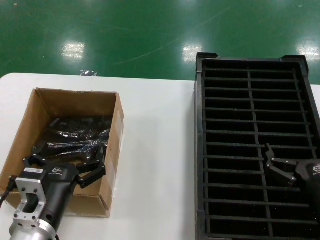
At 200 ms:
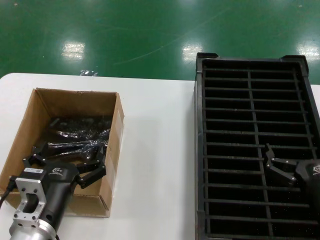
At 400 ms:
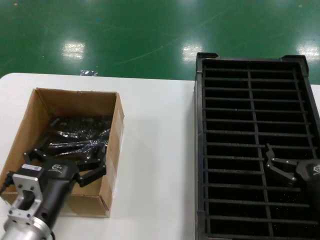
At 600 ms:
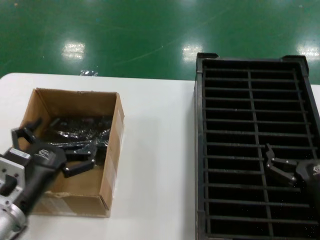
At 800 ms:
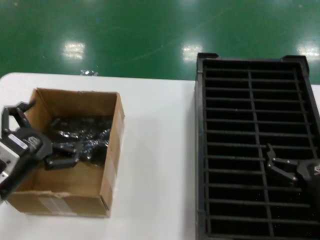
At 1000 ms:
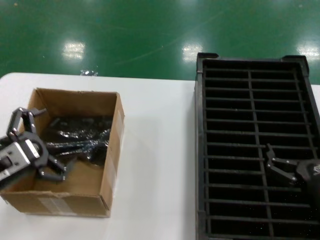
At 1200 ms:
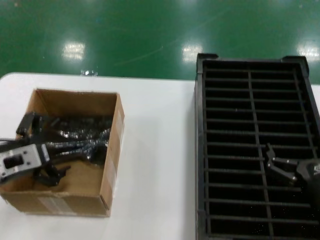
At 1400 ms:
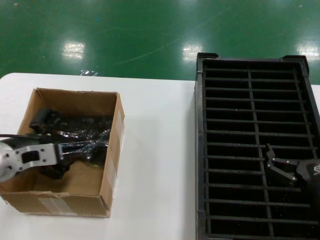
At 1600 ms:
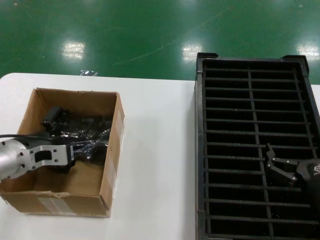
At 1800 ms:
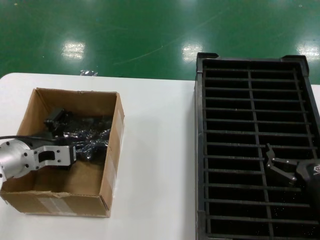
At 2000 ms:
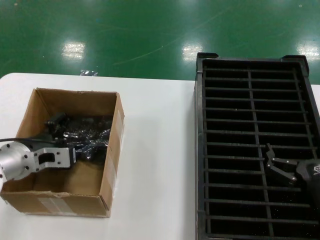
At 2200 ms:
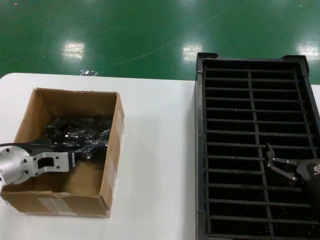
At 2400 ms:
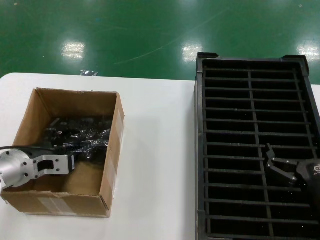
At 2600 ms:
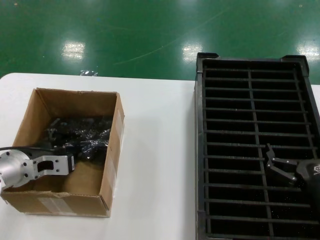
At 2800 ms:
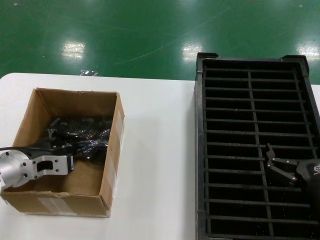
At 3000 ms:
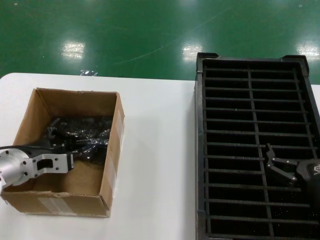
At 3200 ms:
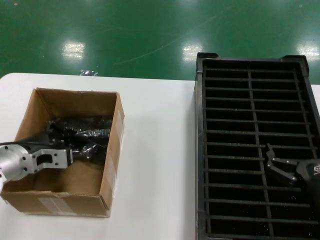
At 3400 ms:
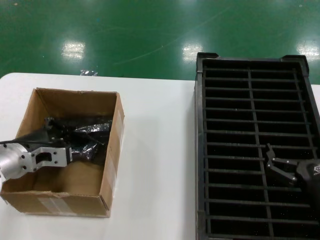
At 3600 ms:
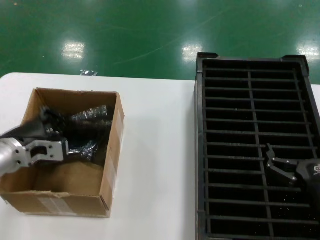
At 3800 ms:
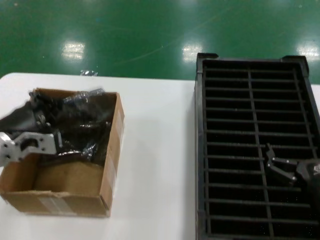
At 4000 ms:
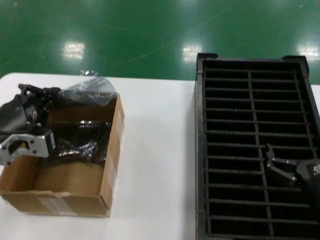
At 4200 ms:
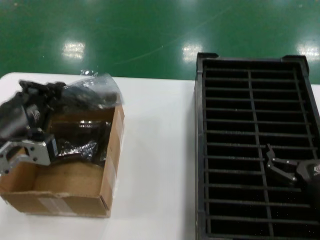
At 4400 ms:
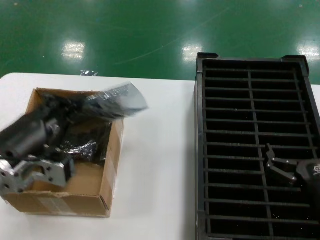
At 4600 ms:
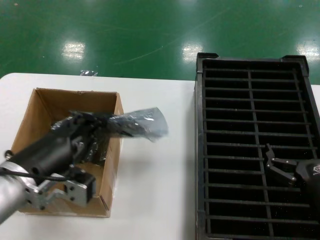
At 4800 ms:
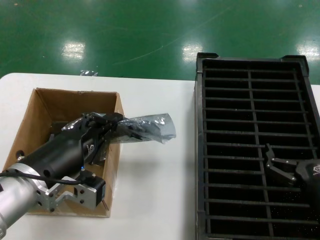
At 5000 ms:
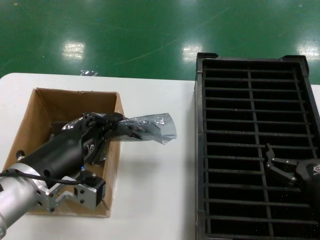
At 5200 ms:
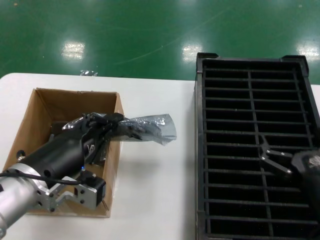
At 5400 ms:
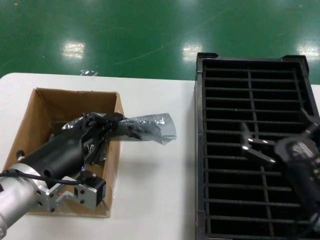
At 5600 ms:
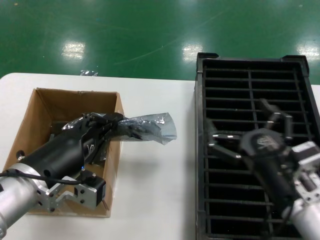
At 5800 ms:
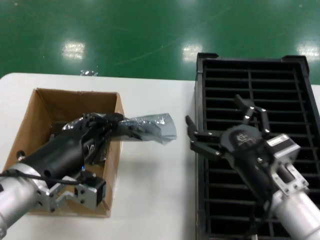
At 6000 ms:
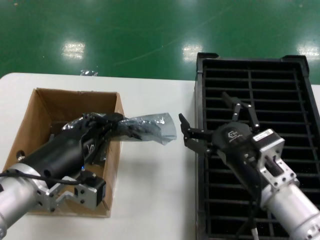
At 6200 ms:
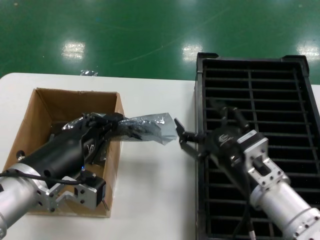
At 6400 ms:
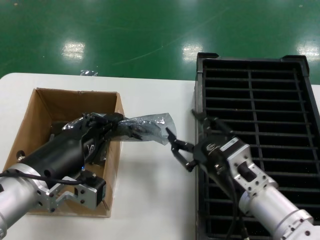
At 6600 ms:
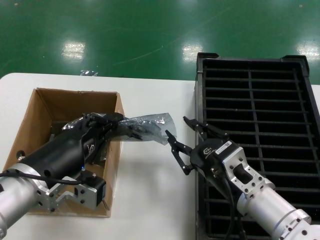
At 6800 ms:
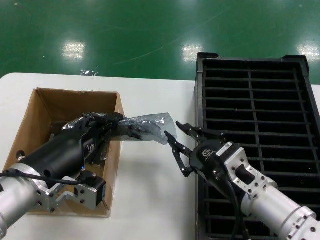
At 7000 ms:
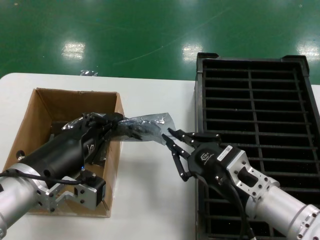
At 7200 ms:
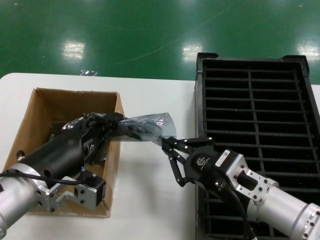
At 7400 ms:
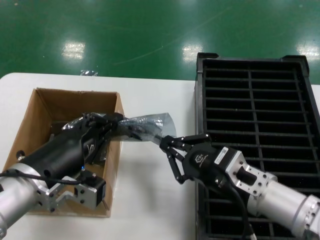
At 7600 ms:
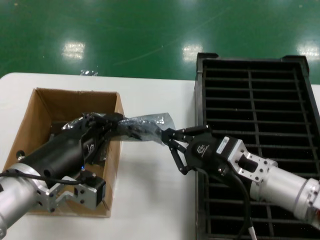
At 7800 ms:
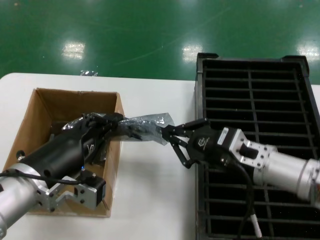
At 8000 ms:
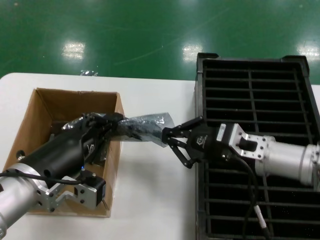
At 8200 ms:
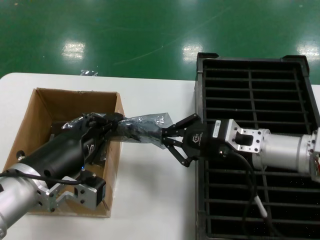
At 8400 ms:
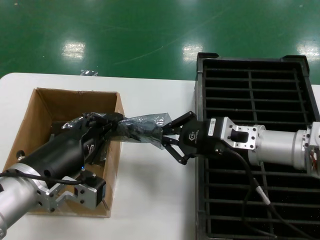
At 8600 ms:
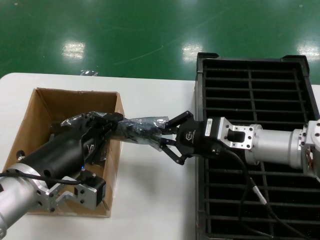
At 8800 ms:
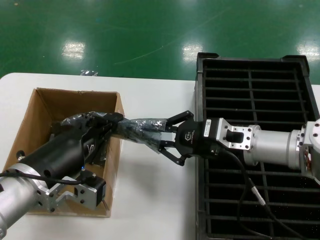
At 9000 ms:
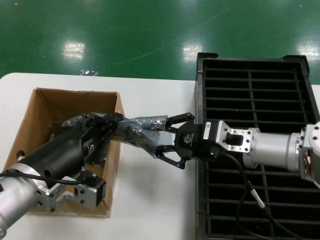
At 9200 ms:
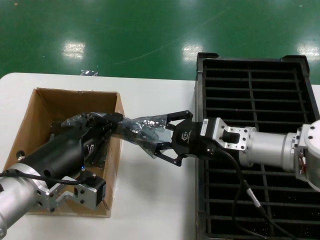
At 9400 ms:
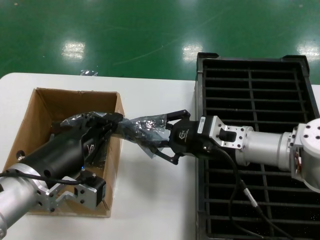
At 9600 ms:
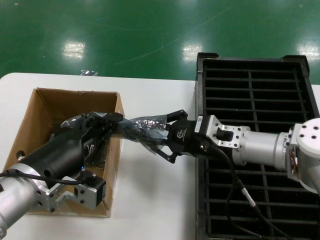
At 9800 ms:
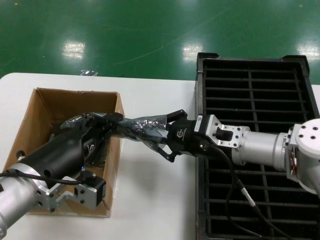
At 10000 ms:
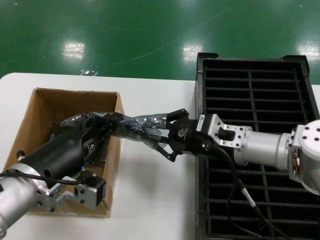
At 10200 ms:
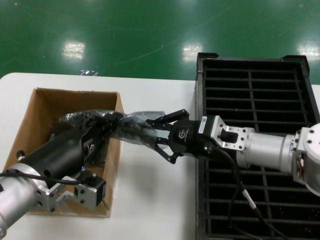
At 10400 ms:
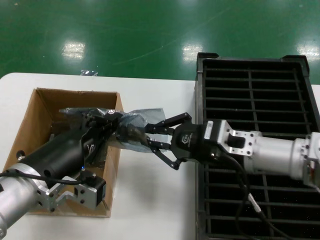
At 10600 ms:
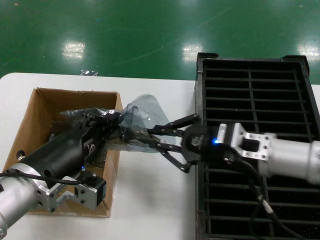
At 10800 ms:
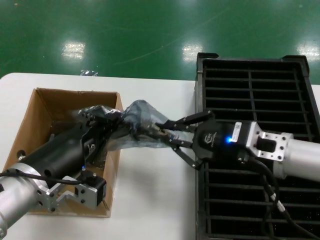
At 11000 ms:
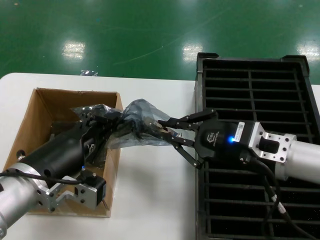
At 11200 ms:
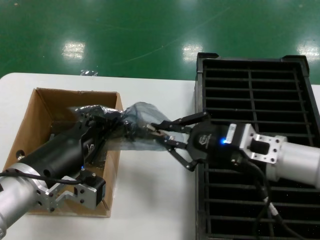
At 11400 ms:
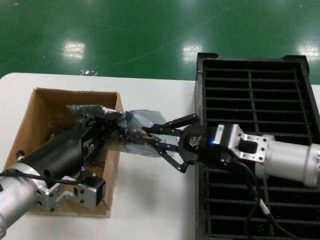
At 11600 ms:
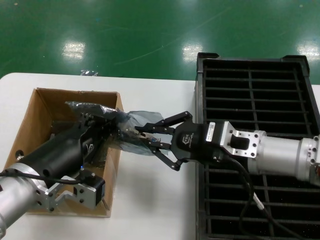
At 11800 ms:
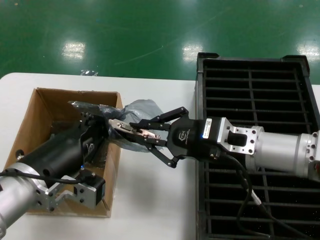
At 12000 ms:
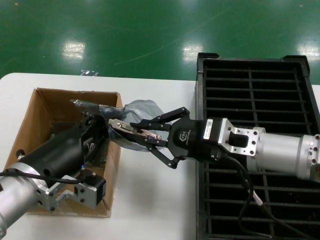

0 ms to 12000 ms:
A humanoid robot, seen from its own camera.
Task of the whole recording: take out graphics card from box remove packaging put into black container.
Step, 0 ms to 3000 ms: Grasp the bag.
Step, 3200 ms to 5000 ms: Lift the bag.
0 ms to 1600 ms: The left hand moves forward, to the left and upward, approximately 20 cm.
1600 ms to 3000 ms: The hands move only a little.
3000 ms to 4400 ms: The left hand travels backward, upward and to the right by roughly 15 cm.
4400 ms to 6000 ms: The right hand travels to the left and upward by approximately 10 cm.
7600 ms to 9000 ms: The right hand goes some 10 cm forward.
9000 ms to 10400 ms: The hands move only a little.

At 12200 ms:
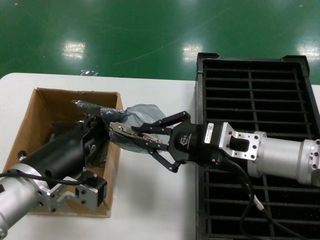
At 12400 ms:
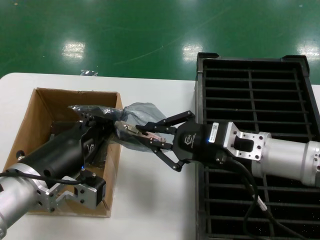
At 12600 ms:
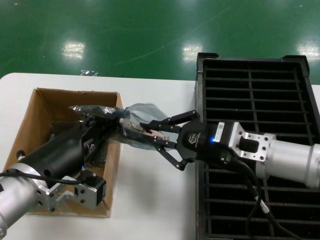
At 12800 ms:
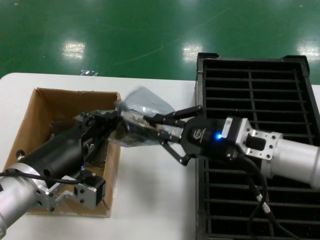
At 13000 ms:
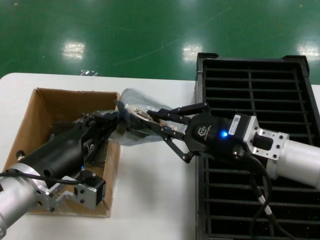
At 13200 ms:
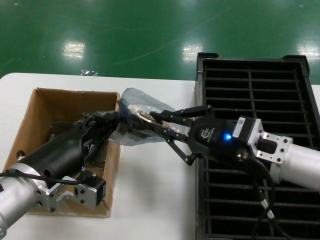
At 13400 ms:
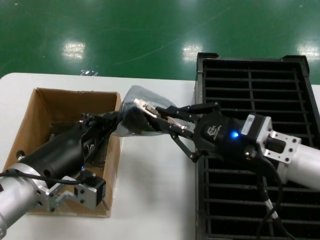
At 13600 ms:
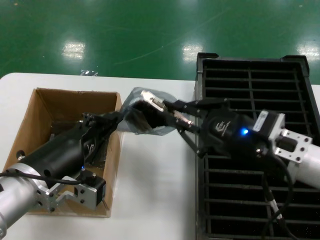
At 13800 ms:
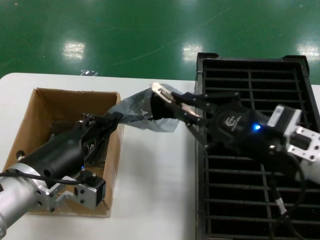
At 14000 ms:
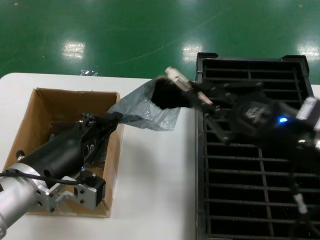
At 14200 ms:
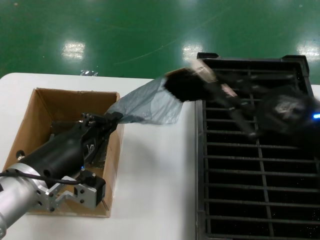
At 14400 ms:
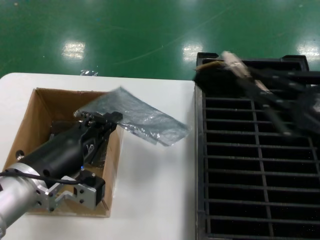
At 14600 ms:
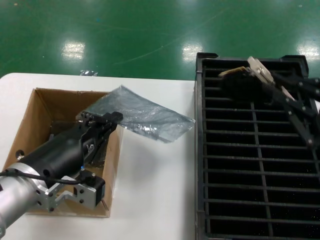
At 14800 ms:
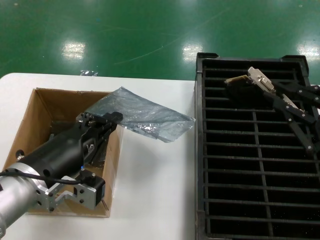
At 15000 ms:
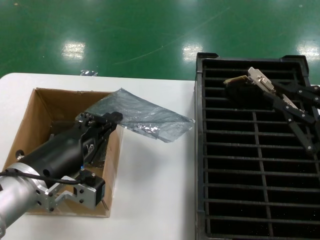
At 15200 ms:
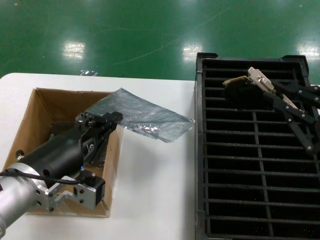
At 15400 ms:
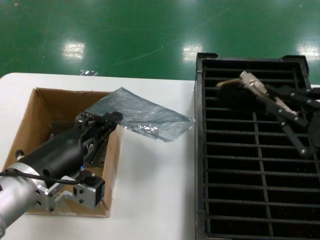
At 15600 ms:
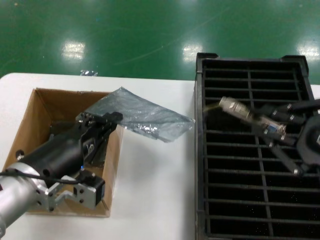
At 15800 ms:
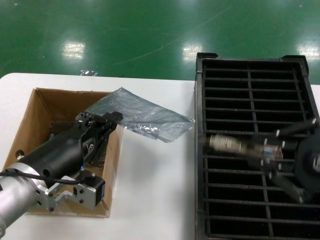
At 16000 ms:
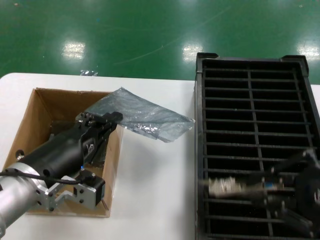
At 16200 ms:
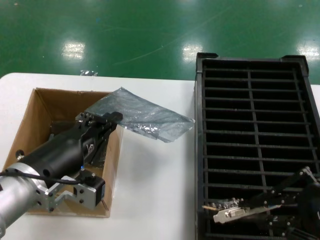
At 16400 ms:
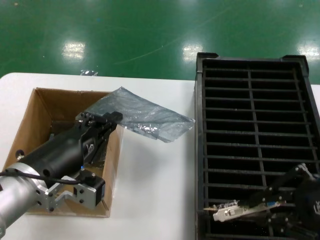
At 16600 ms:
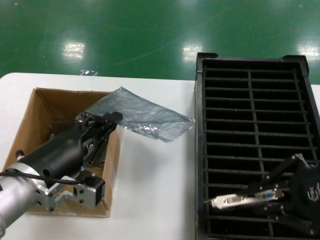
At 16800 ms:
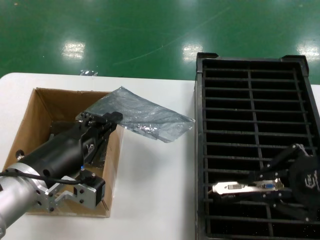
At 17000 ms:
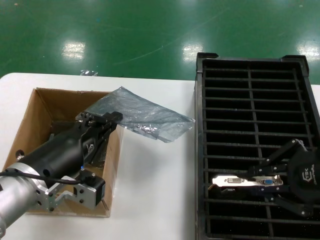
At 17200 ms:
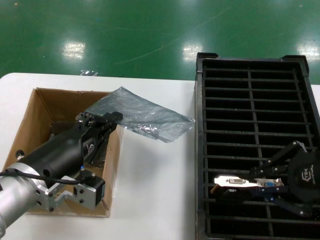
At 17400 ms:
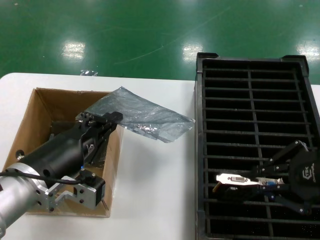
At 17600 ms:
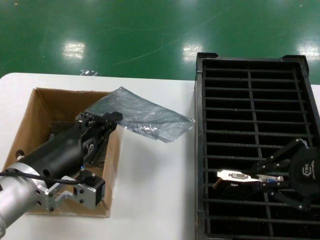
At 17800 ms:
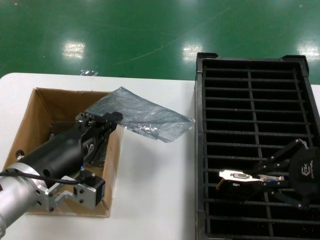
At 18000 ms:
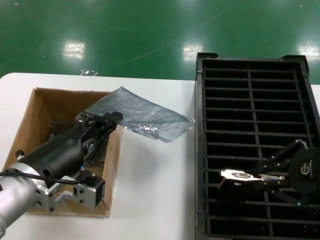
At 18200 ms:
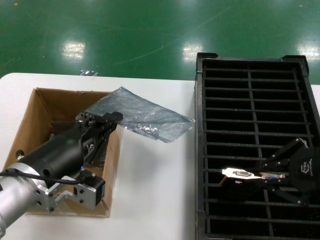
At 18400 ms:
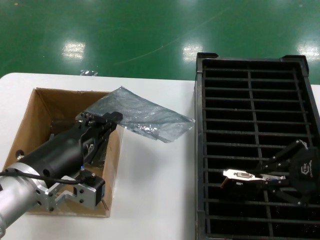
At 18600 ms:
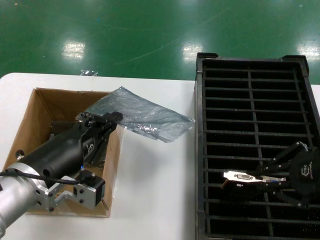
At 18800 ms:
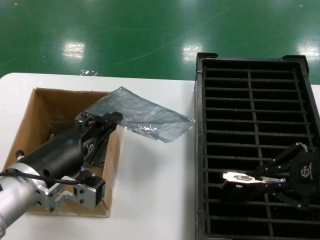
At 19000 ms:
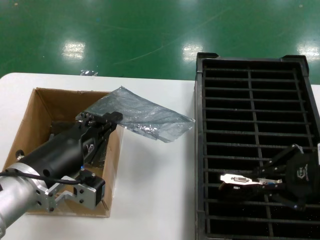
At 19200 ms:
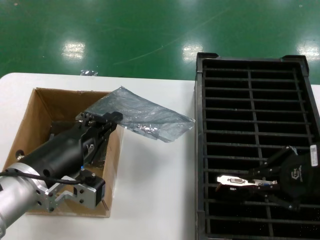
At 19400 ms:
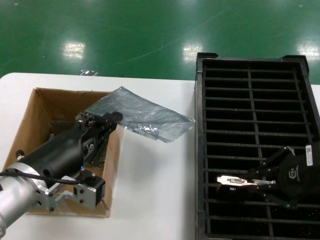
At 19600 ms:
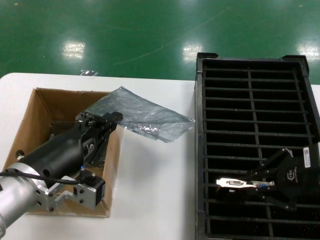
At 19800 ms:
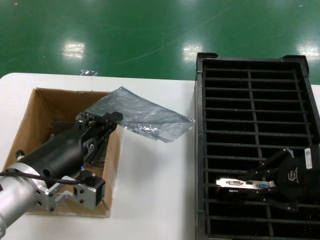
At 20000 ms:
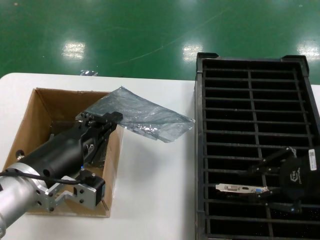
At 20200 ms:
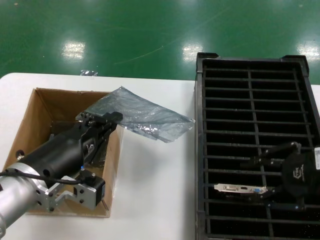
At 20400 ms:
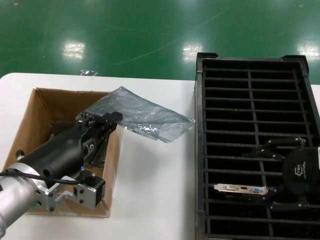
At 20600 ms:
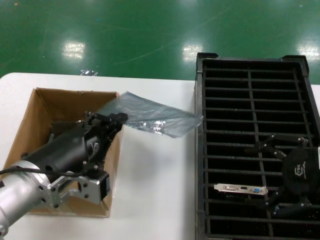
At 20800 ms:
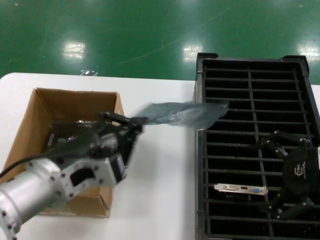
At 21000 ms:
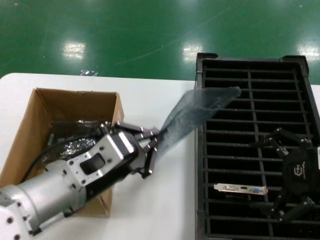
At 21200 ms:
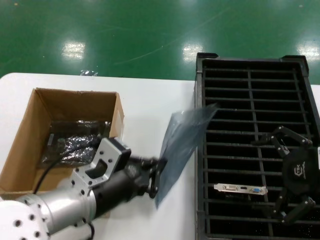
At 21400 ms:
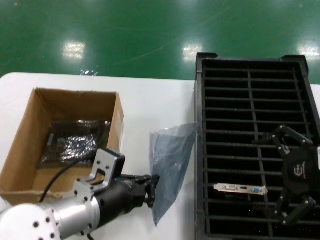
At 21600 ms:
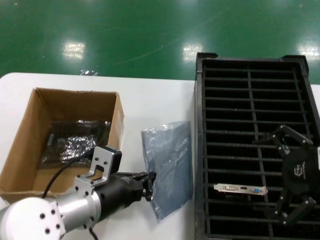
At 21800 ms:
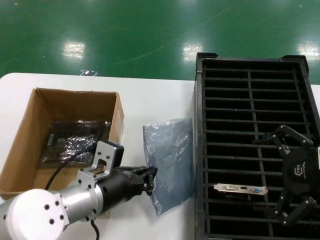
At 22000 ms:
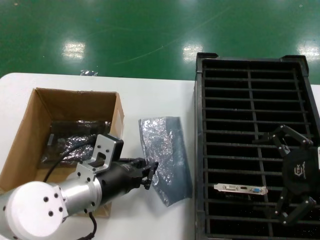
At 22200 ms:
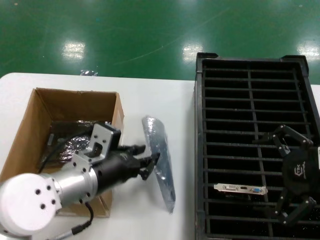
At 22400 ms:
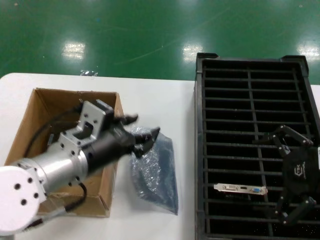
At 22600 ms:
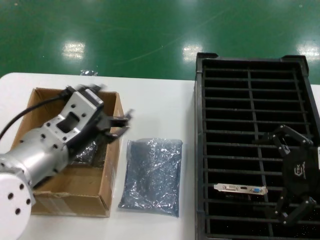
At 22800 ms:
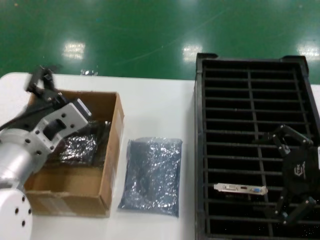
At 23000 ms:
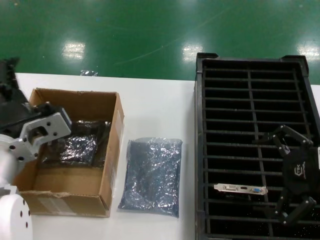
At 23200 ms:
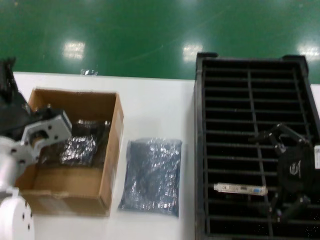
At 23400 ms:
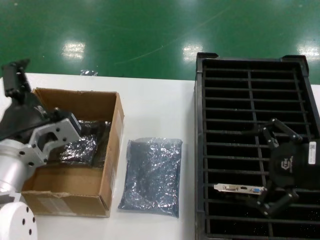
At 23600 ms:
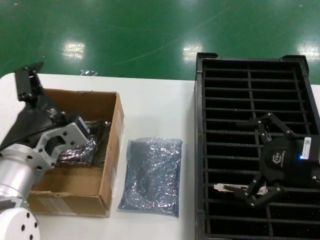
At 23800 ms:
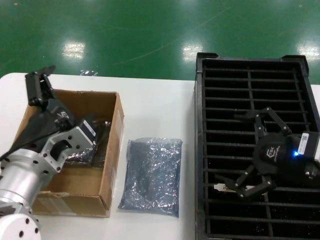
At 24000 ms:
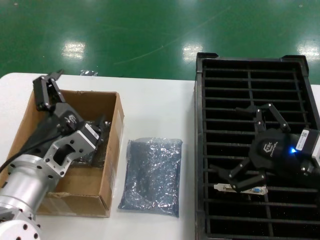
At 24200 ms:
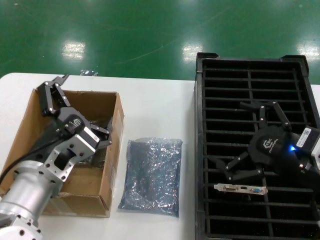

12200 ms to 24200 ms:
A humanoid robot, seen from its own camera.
Task of the whole recording: take out graphics card from box remove packaging put into black container.
Step, 12200 ms to 14200 ms: Take out the hard disk of the bag.
Step, 14400 ms to 20600 ms: Place the hard disk in the hard disk enclosure.
Step, 20800 ms to 22400 ms: Place the down the bag.
12200 ms to 13800 ms: The right hand is displaced to the right and backward by approximately 10 cm.
13800 ms to 15200 ms: The right hand moves to the right, backward and upward, roughly 15 cm.
15200 ms to 16600 ms: The right hand moves roughly 5 cm.
16600 ms to 18200 ms: The right hand moves forward, approximately 5 cm.
18200 ms to 19800 ms: The right hand shifts by approximately 5 cm.
19800 ms to 21200 ms: The left hand travels to the right by about 5 cm.
21200 ms to 22600 ms: The left hand changes place by roughly 5 cm.
22600 ms to 24200 ms: The two hands go approximately 5 cm downward.
